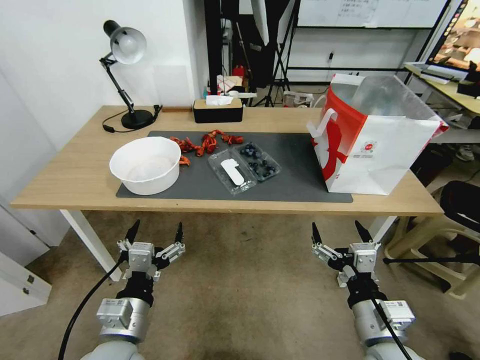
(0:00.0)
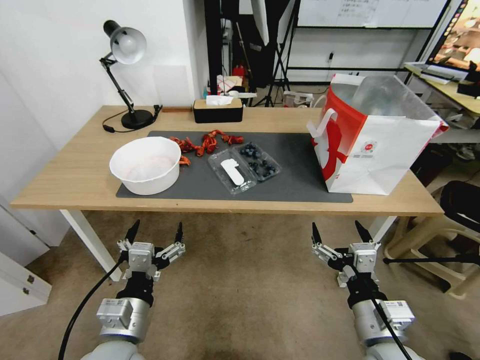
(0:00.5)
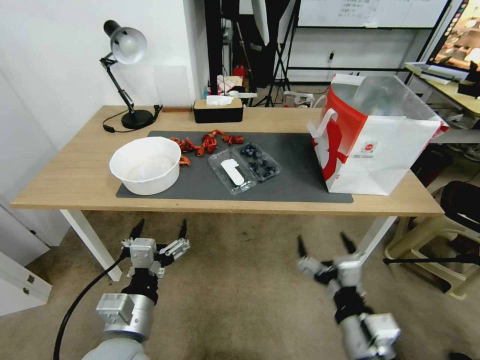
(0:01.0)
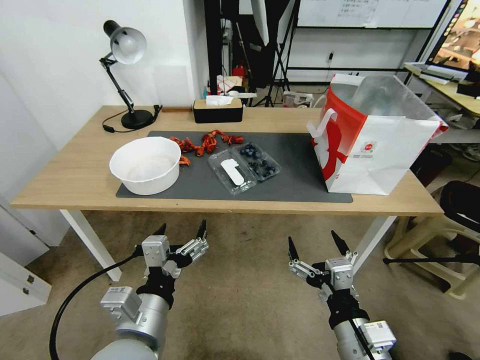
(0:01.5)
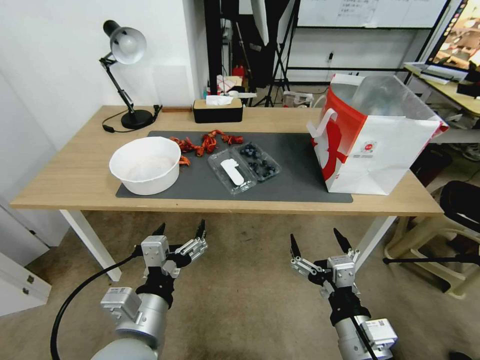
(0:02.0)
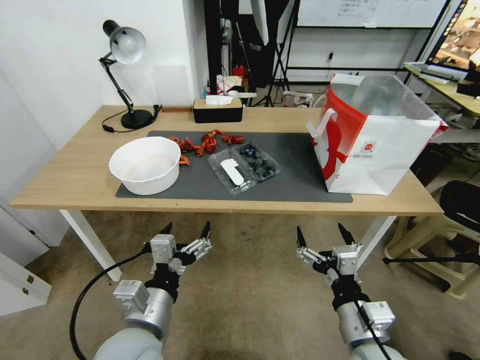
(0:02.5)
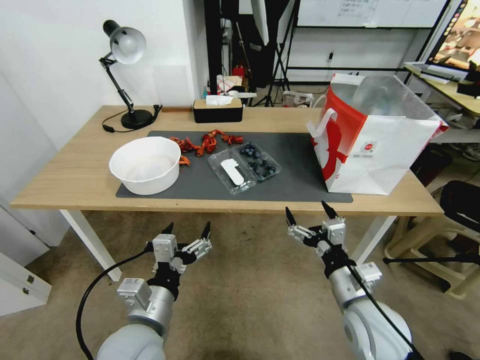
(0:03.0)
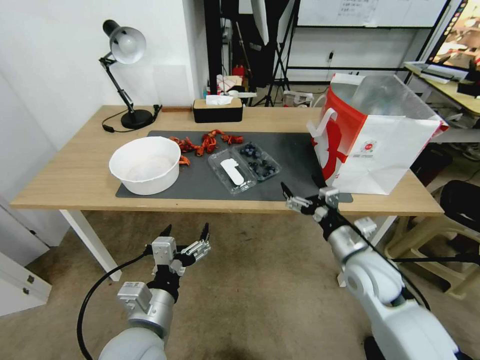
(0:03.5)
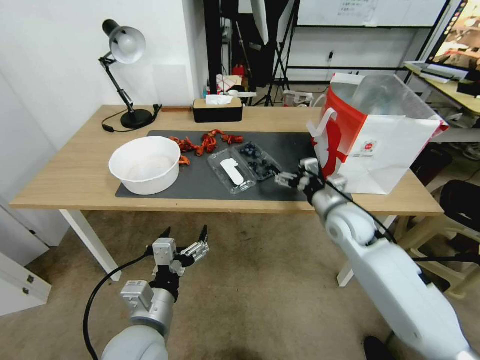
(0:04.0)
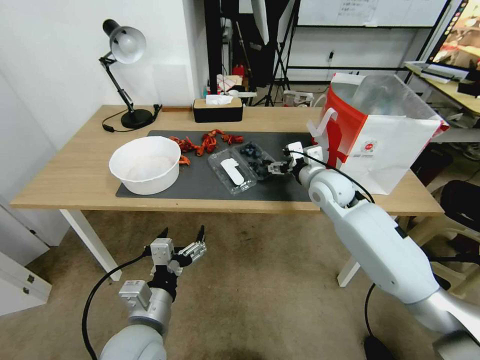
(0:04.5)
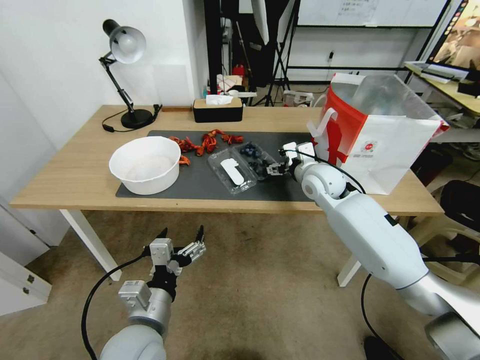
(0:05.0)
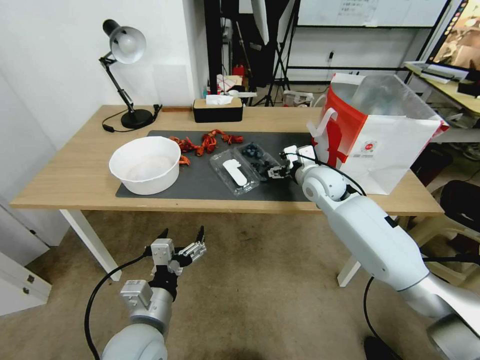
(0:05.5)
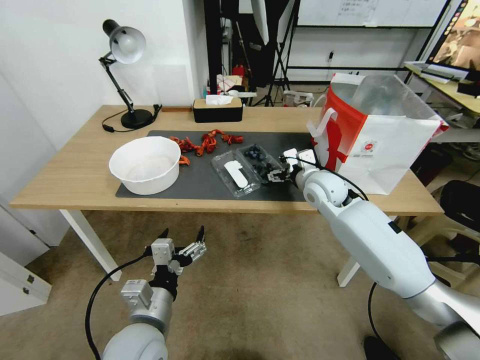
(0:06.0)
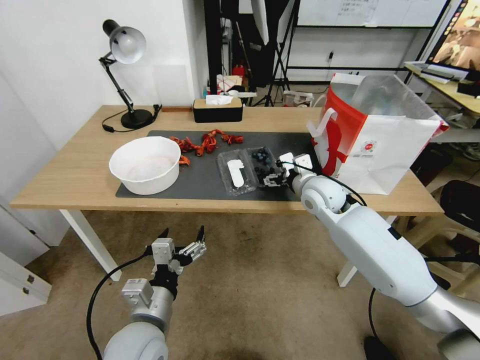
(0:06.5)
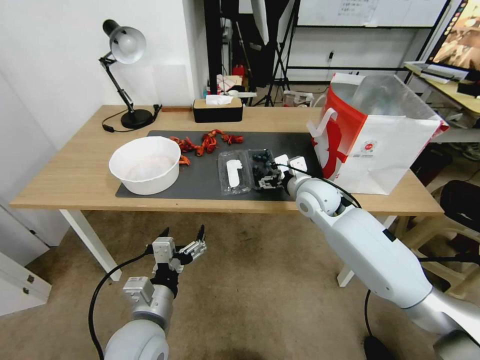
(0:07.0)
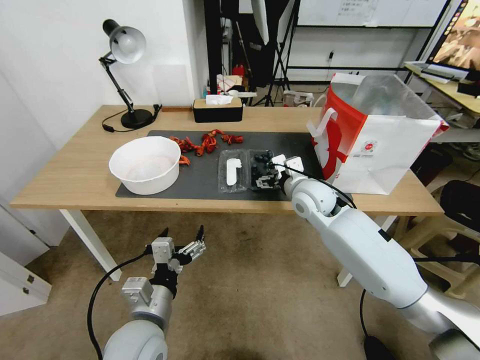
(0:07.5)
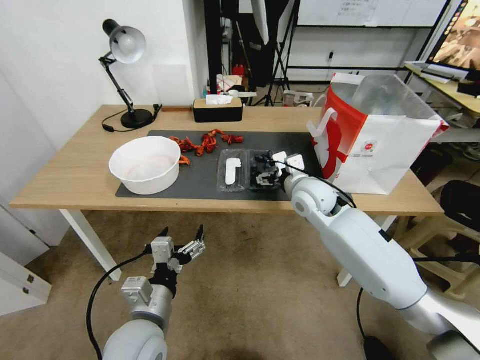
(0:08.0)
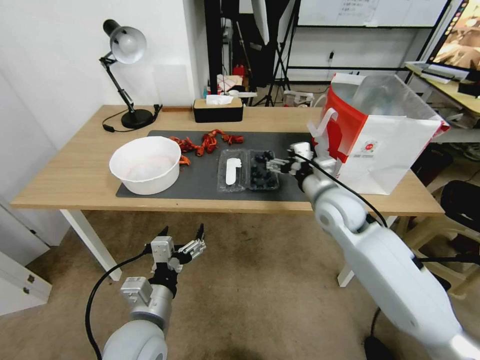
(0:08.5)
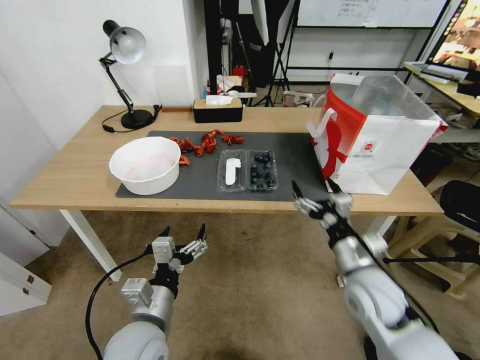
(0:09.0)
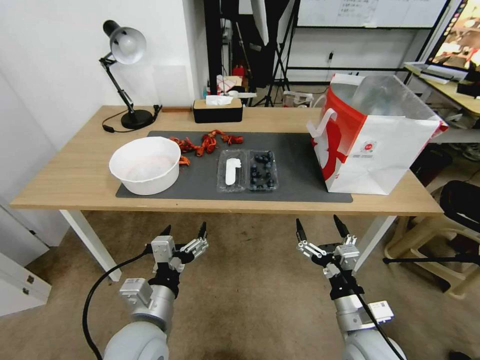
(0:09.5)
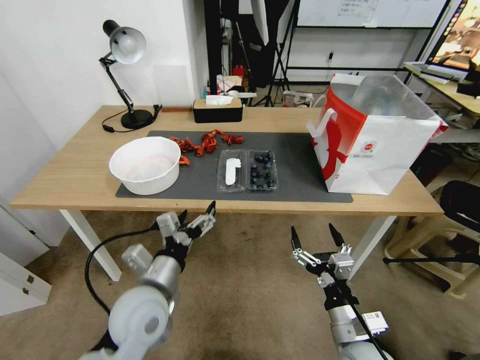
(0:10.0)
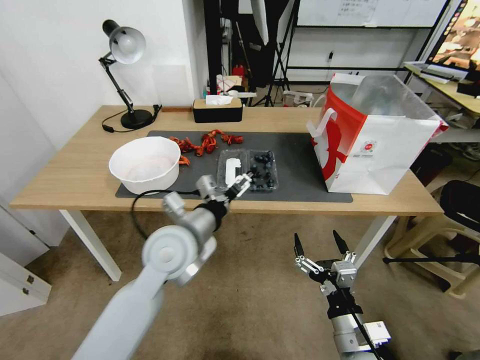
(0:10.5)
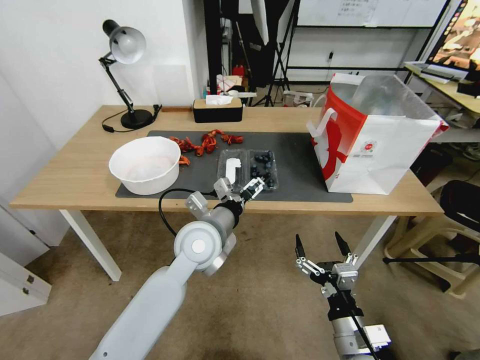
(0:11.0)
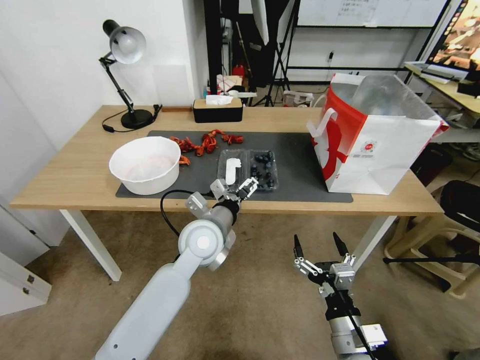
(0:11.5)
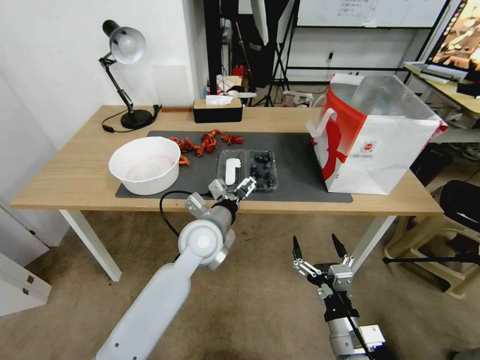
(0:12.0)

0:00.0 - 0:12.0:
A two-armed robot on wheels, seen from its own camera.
Task of the whole recording: Close the takeout container lid, then place the container into the takeout bag.
0:02.0 - 0:04.0: The right gripper heads forward, covering some 30 cm. The left gripper travels downward by approximately 5 cm.
0:04.0 - 0:06.0: The right gripper travels forward by roughly 5 cm.
0:06.0 - 0:08.0: The grippers make only small movements.
0:08.0 - 0:10.0: The right gripper is displaced backward and downward by some 35 cm. Meanwhile the left gripper ends up roughly 5 cm from where it was.
0:10.0 - 0:12.0: The left gripper shifts approximately 15 cm forward and to the right.

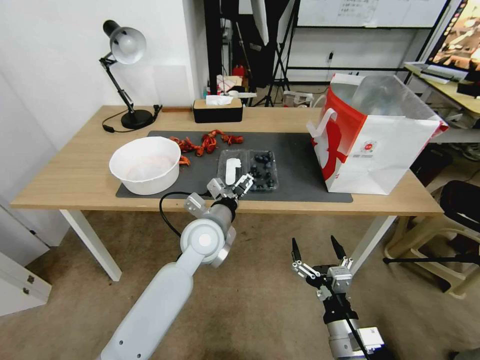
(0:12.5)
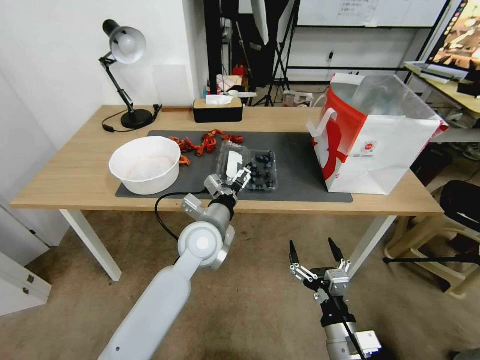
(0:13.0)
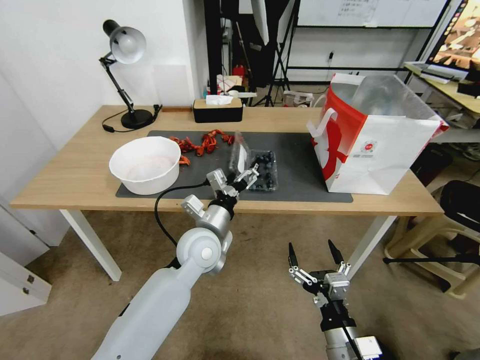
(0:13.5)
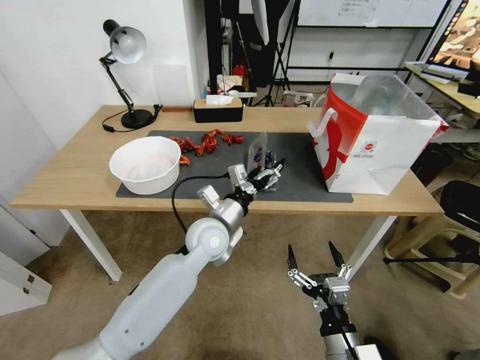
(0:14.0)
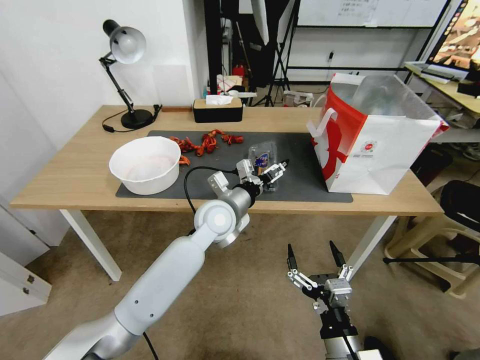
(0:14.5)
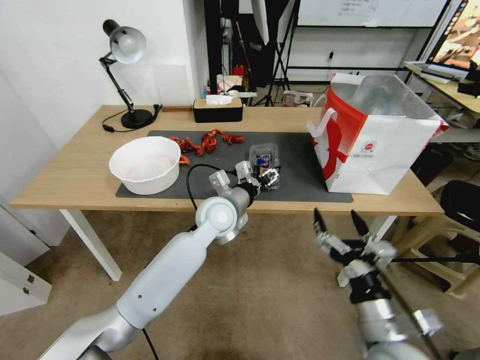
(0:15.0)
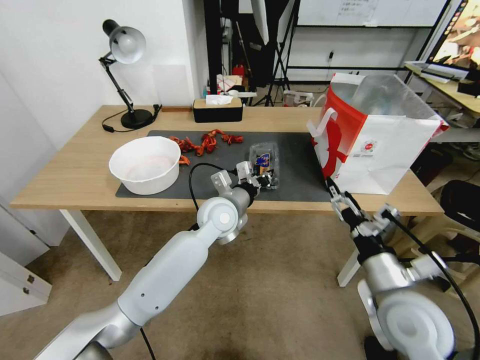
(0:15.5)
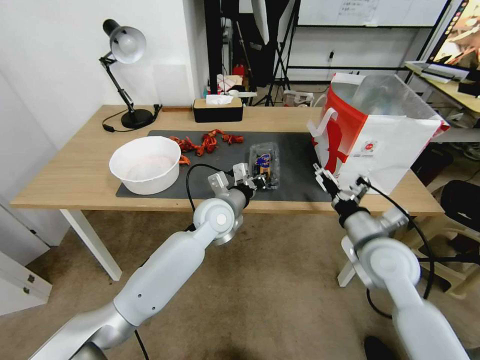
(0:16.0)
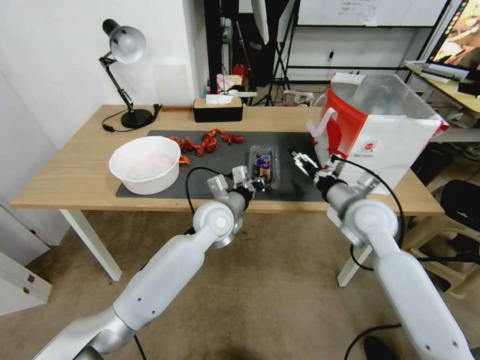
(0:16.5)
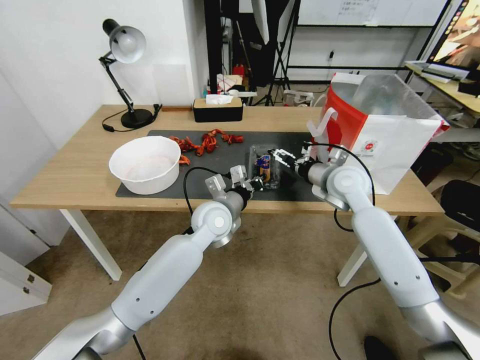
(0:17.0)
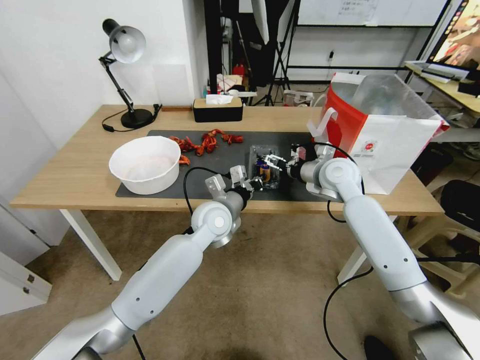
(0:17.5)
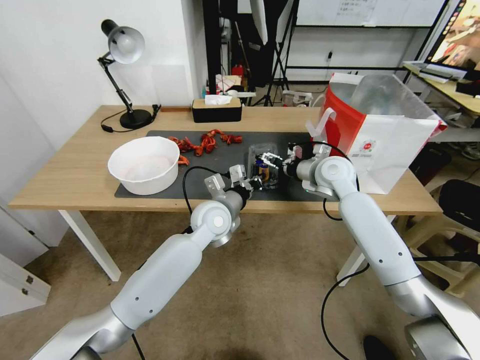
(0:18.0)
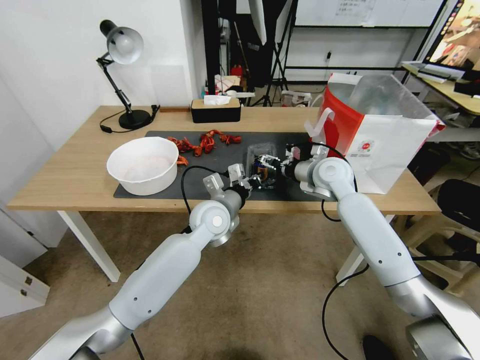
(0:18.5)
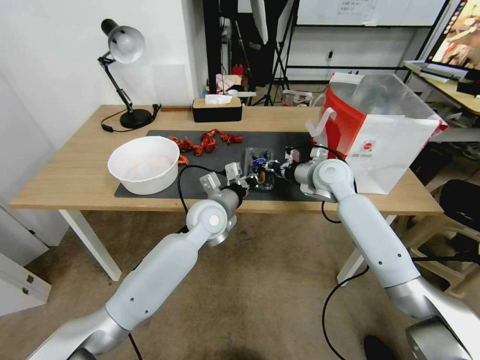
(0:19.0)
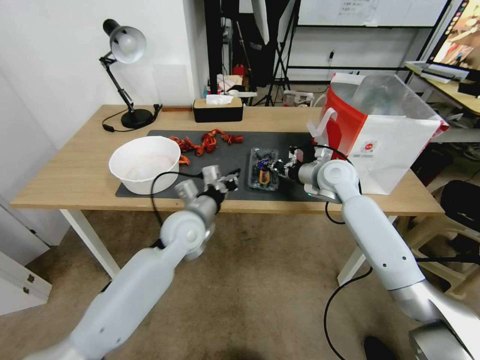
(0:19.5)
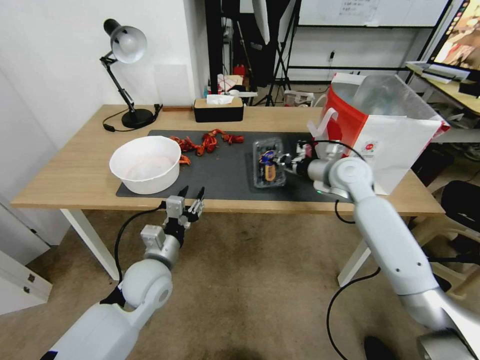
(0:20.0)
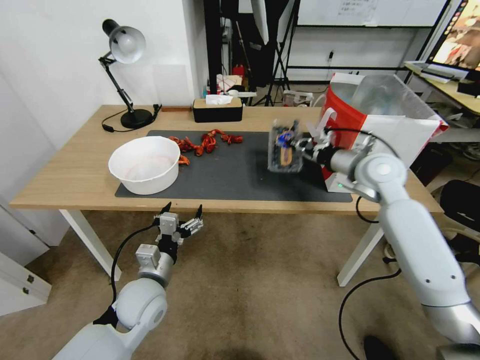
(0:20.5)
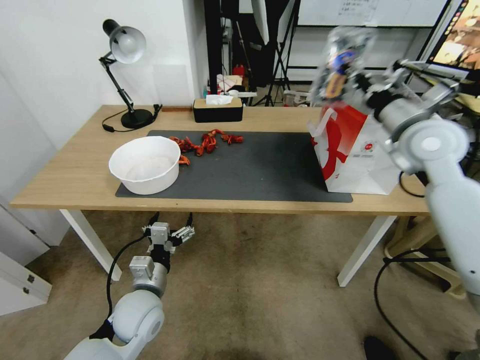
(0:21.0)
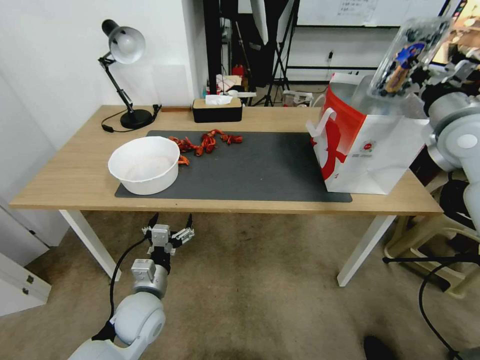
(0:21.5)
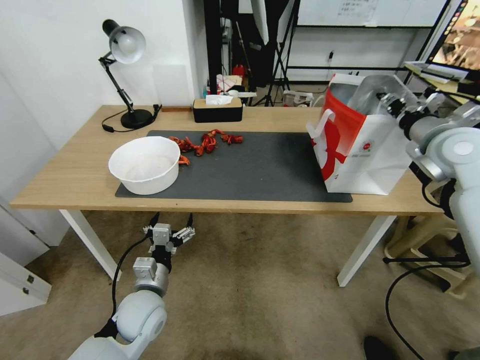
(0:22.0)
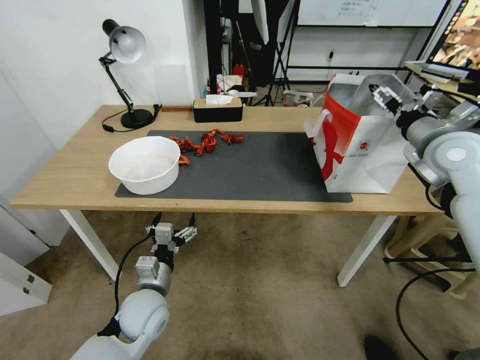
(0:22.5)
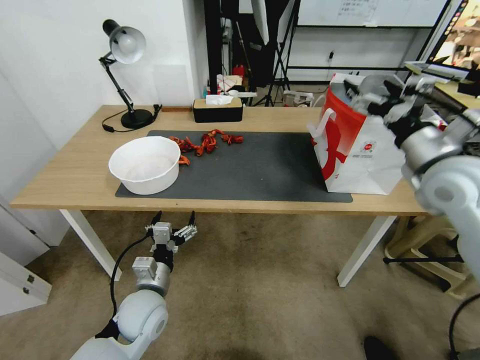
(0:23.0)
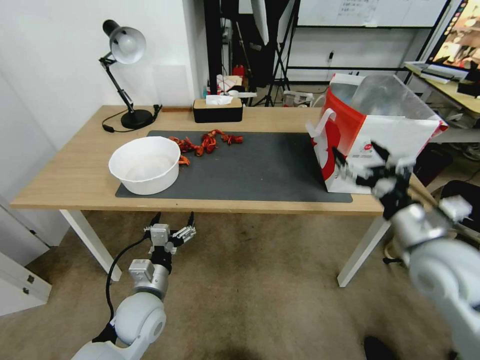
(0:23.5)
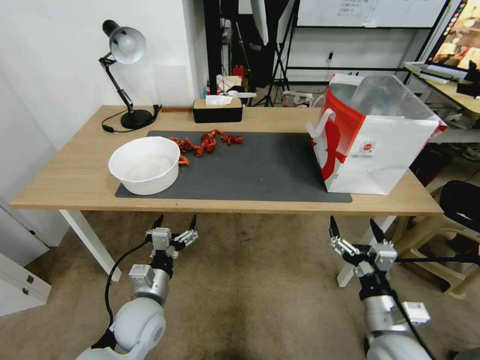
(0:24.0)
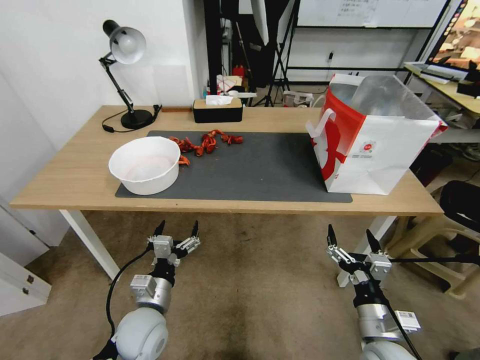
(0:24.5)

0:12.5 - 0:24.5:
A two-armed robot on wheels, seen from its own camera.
Task of the whole recording: Close the takeout container lid, then place the container into the takeout bag.
0:12.5 - 0:14.5: The left gripper ends up some 5 cm from where it was.
0:14.5 - 0:16.5: The right gripper goes about 30 cm forward and upward. Meanwhile the left gripper closes its fingers.
0:16.5 - 0:18.5: The right gripper is displaced forward by approximately 10 cm.
0:18.5 - 0:20.5: The left gripper moves backward, to the left and downward, about 20 cm, and opens up. Meanwhile the right gripper heads to the right and upward, covering roughly 10 cm, and closes.
0:20.5 - 0:22.5: The right gripper is displaced to the right and upward by approximately 10 cm, and opens its fingers.
0:22.5 - 0:24.5: The right gripper travels downward, backward and to the left by some 40 cm.
